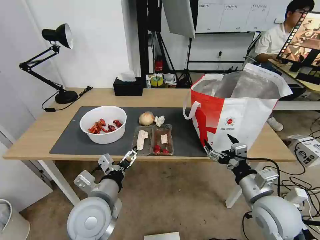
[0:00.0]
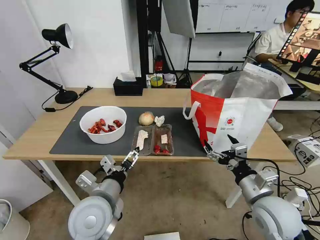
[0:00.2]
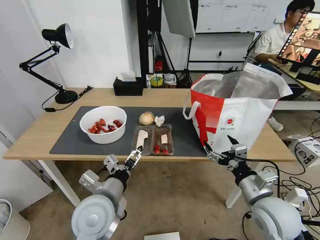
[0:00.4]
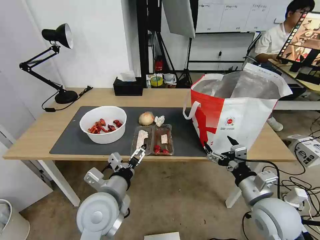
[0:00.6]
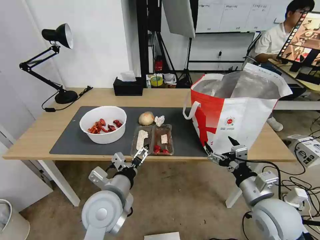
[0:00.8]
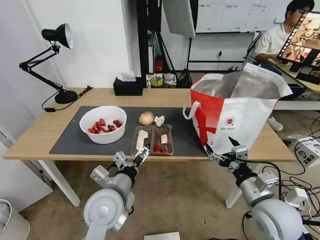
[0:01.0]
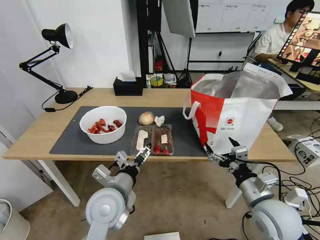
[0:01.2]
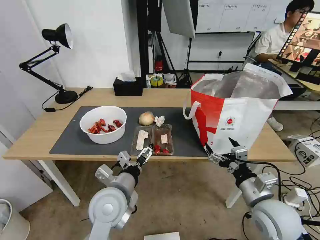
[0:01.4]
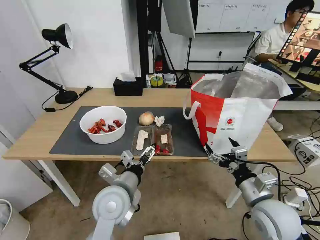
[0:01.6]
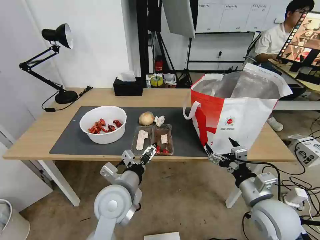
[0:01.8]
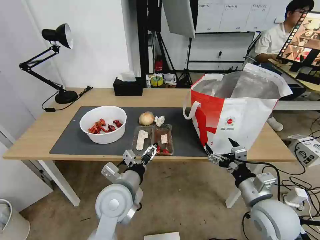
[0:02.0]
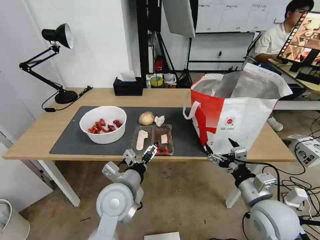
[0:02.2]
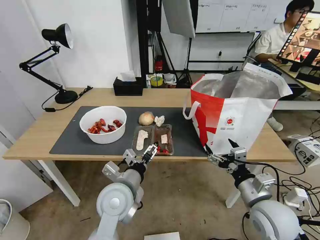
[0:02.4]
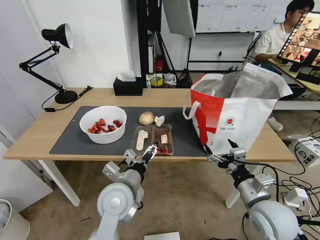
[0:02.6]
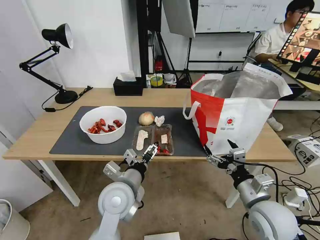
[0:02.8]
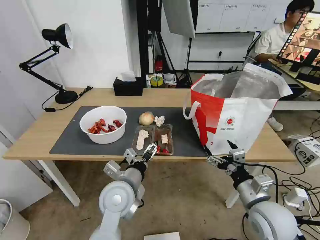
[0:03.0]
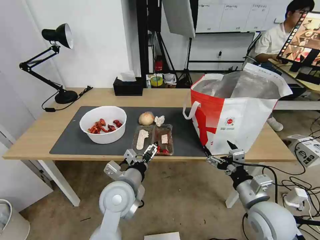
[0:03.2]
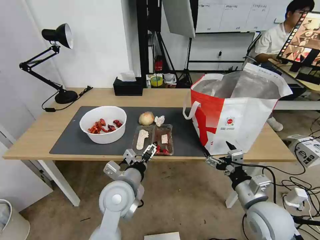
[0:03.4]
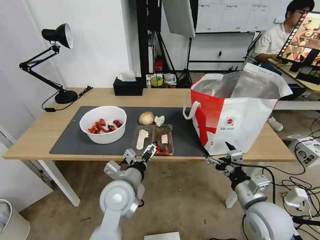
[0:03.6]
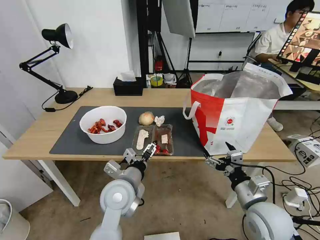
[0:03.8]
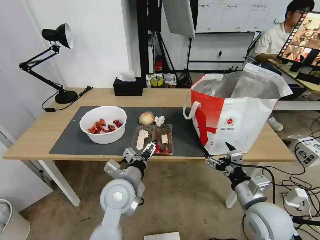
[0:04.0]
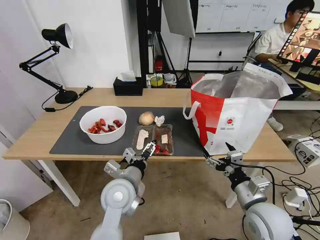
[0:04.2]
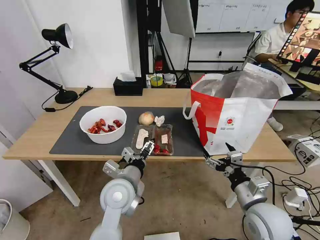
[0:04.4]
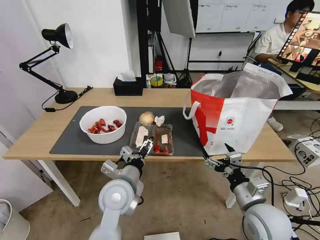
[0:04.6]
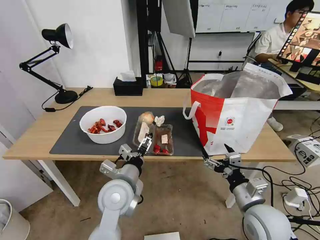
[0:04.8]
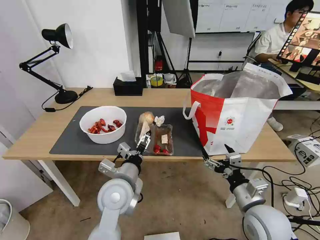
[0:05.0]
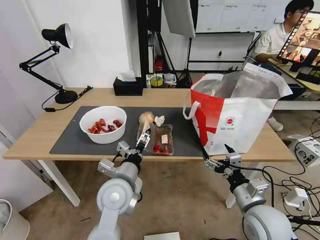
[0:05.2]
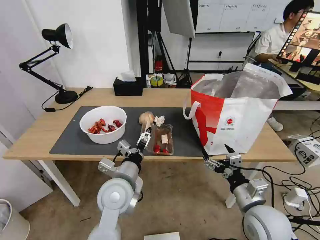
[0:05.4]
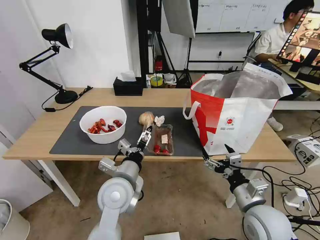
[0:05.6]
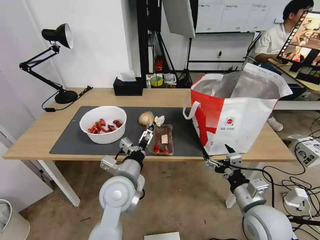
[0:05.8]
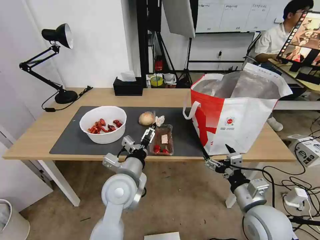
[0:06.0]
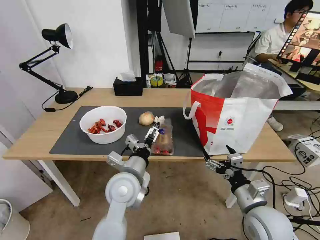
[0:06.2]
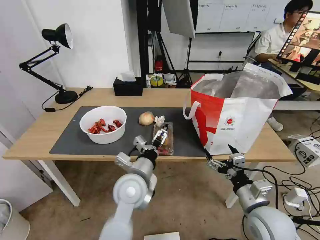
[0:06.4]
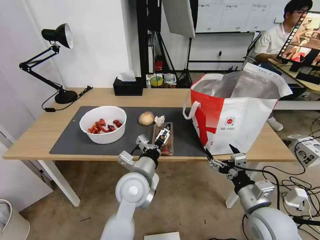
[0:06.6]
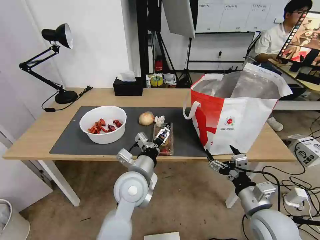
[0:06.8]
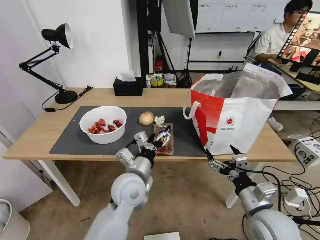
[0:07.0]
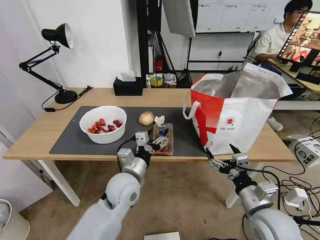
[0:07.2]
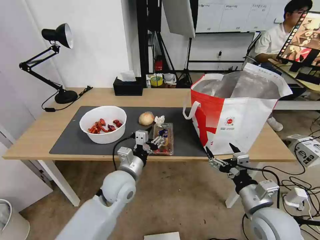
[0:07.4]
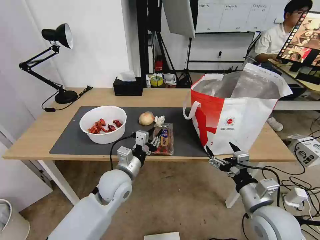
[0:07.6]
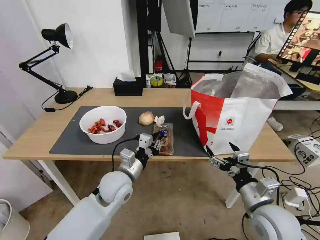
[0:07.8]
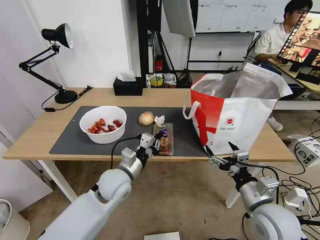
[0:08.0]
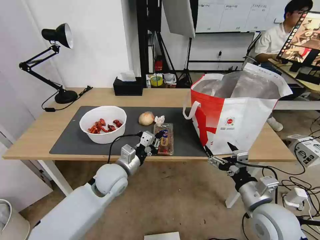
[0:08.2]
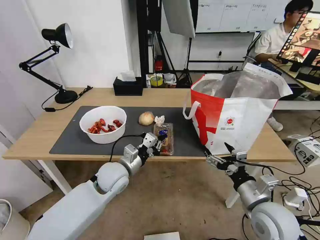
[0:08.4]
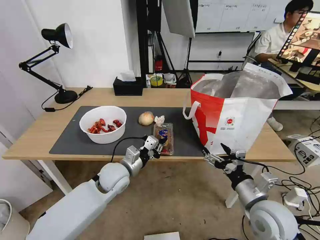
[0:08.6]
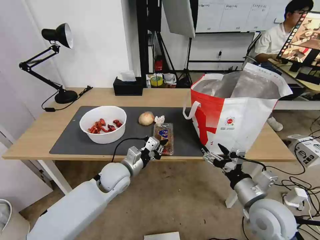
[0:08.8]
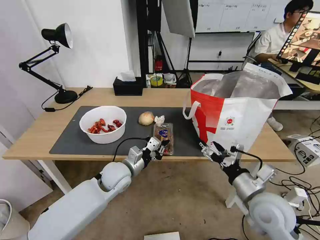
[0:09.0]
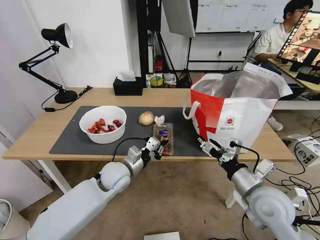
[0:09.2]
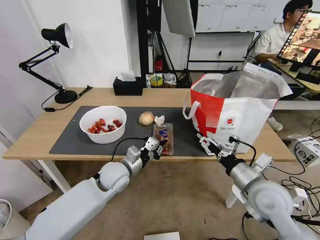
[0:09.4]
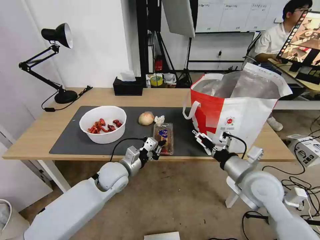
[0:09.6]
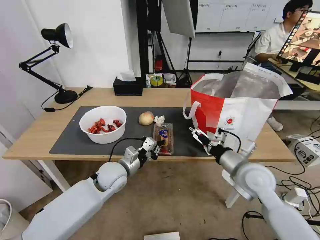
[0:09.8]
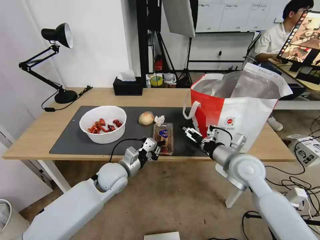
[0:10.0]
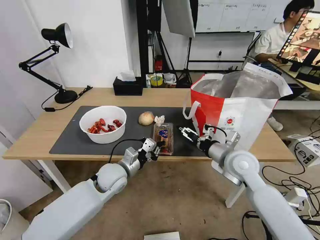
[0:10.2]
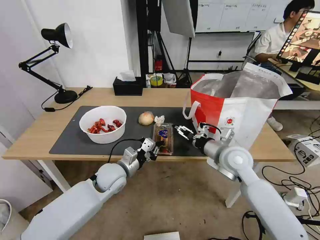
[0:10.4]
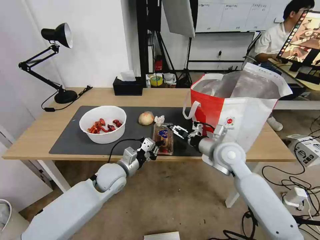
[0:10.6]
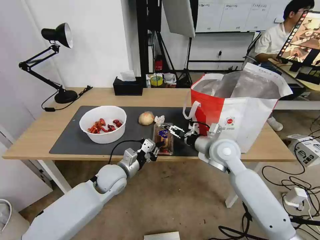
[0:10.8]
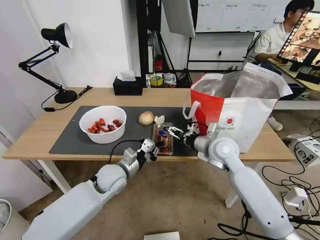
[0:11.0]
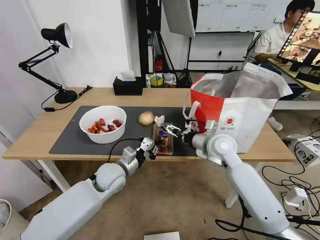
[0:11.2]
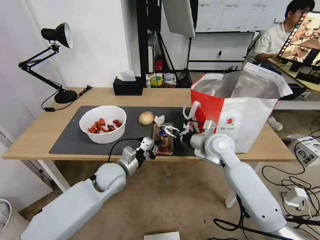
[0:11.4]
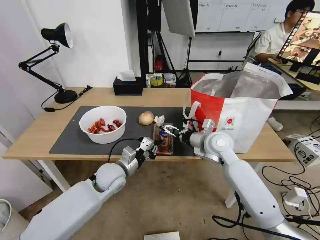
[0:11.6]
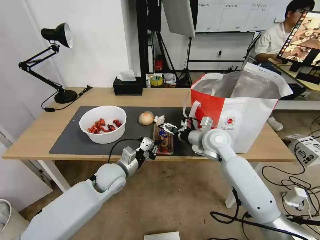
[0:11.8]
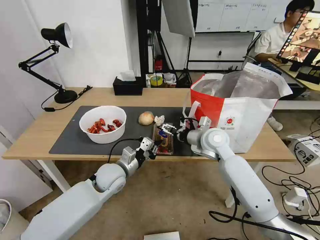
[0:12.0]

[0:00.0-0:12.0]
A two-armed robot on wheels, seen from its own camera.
Task of the whole recording: Pick up the trash from the table and place it into the takeout bag.
0:00.0 to 0:01.6: The left gripper shifts by roughly 5 cm.
0:01.6 to 0:03.0: The grippers stay close to where they were, moving slightly.
0:03.0 to 0:04.4: Both grippers stay put.
0:04.4 to 0:06.0: The grippers make only small movements.
0:06.0 to 0:07.6: The left gripper shifts by approximately 5 cm, and closes its fingers.
0:09.0 to 0:10.4: The right gripper goes about 15 cm forward.
0:10.4 to 0:12.0: The right gripper shifts some 5 cm forward.

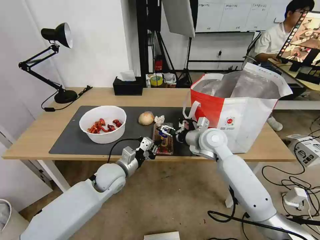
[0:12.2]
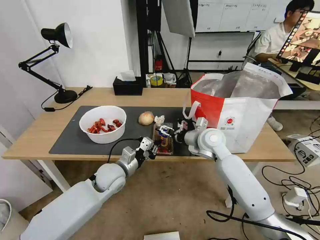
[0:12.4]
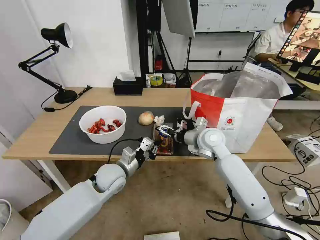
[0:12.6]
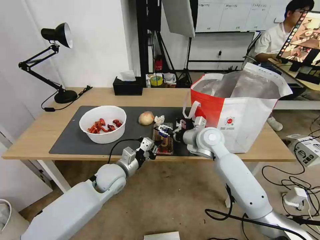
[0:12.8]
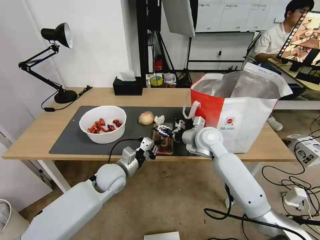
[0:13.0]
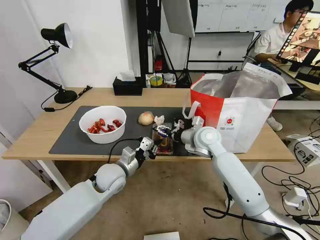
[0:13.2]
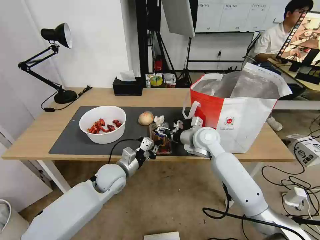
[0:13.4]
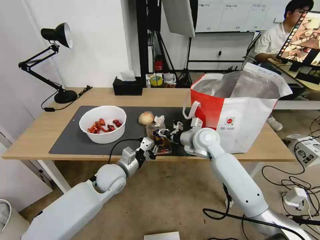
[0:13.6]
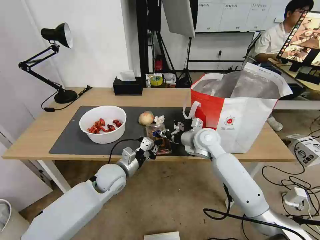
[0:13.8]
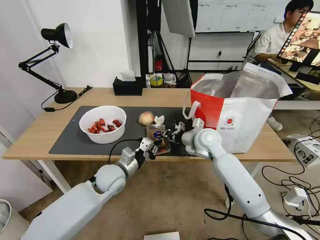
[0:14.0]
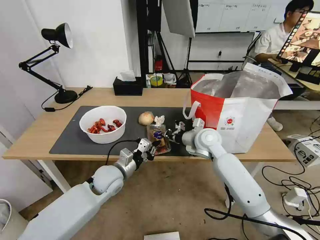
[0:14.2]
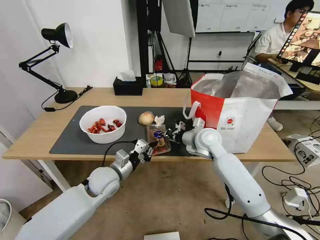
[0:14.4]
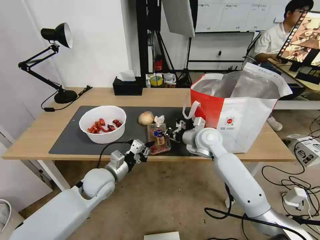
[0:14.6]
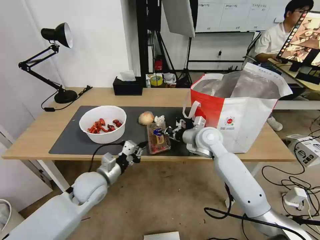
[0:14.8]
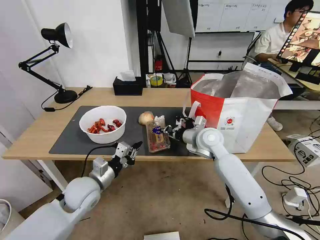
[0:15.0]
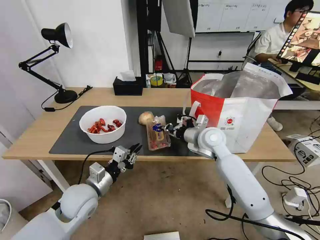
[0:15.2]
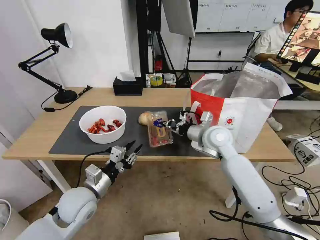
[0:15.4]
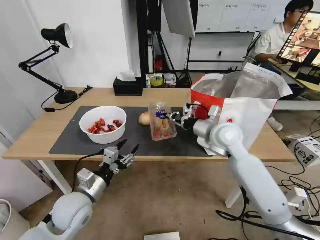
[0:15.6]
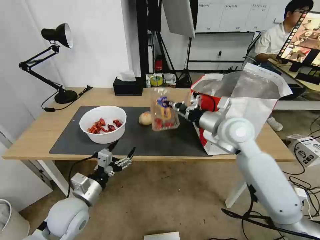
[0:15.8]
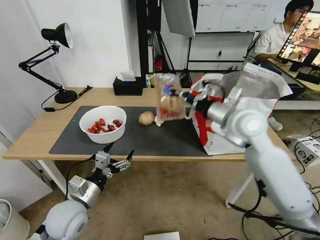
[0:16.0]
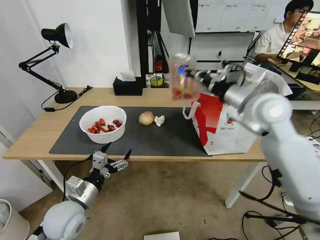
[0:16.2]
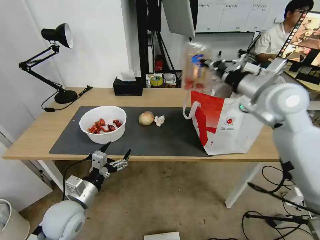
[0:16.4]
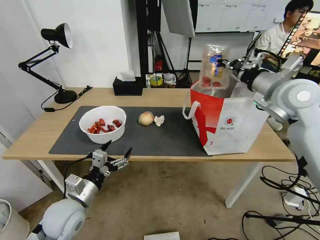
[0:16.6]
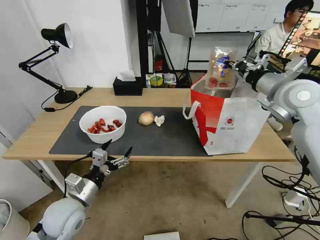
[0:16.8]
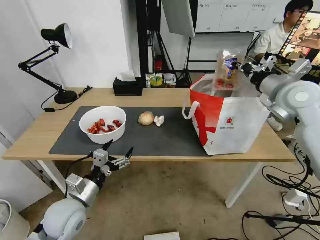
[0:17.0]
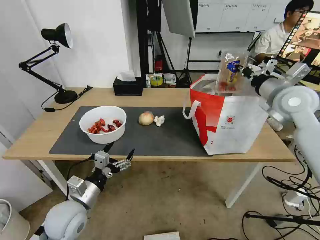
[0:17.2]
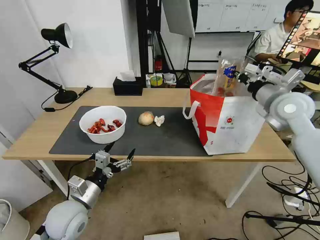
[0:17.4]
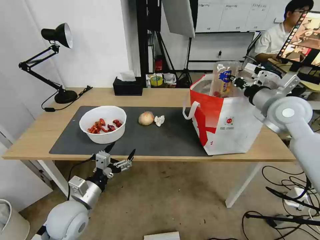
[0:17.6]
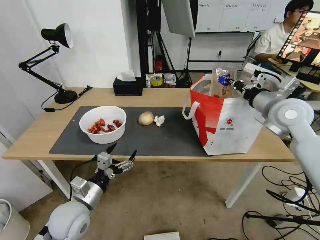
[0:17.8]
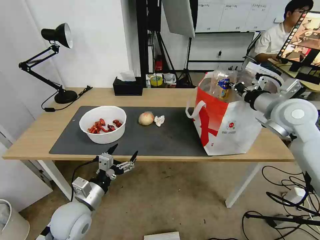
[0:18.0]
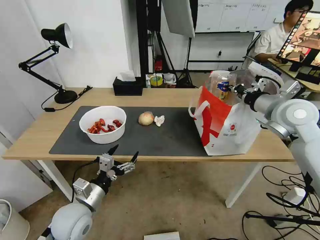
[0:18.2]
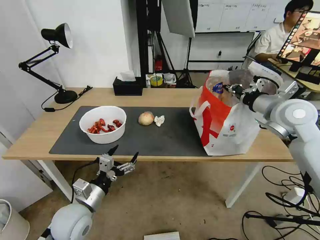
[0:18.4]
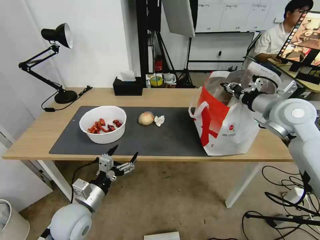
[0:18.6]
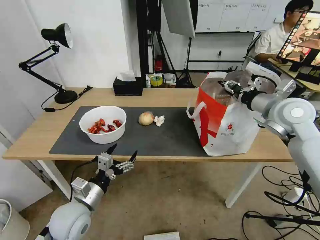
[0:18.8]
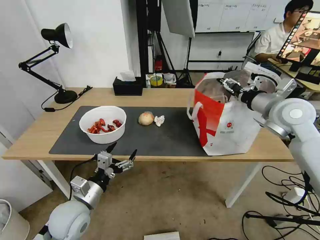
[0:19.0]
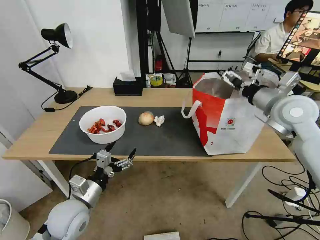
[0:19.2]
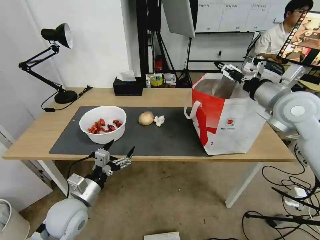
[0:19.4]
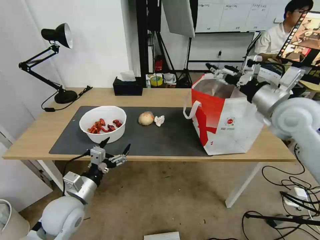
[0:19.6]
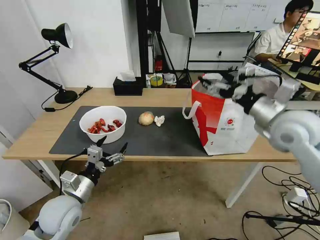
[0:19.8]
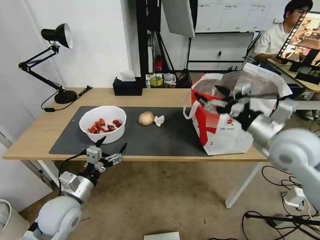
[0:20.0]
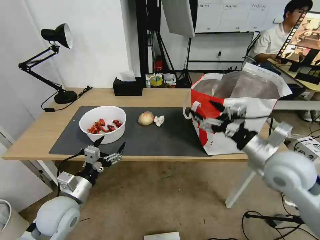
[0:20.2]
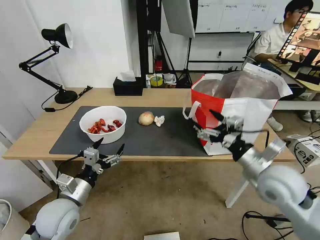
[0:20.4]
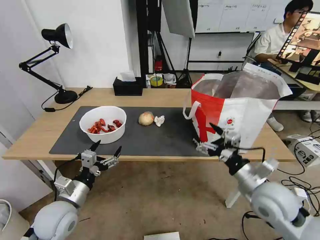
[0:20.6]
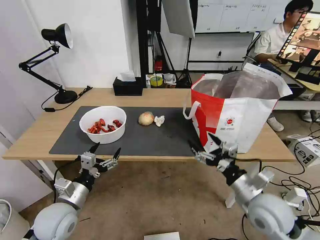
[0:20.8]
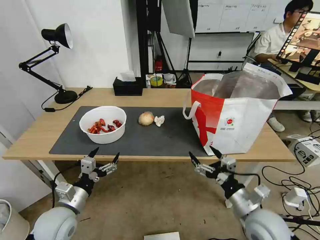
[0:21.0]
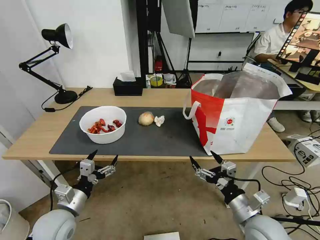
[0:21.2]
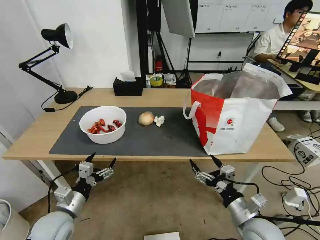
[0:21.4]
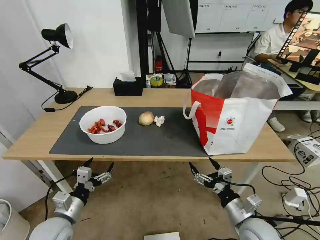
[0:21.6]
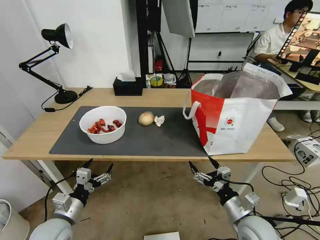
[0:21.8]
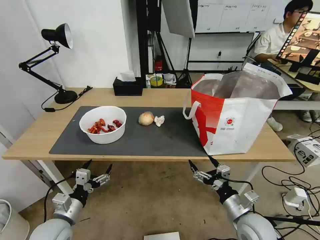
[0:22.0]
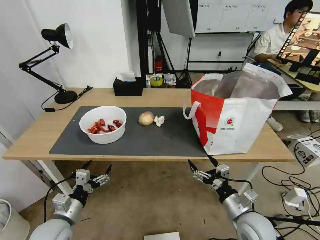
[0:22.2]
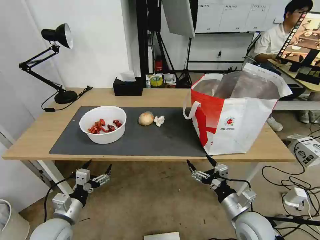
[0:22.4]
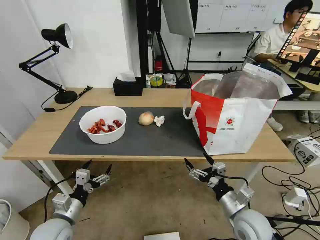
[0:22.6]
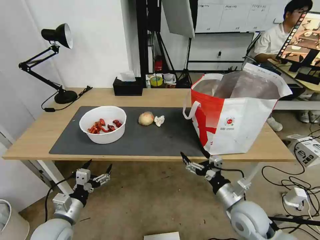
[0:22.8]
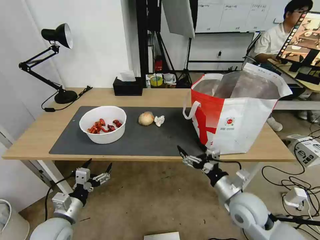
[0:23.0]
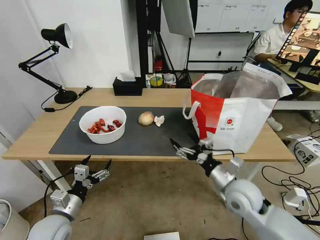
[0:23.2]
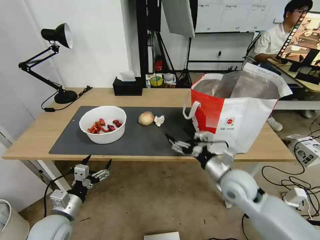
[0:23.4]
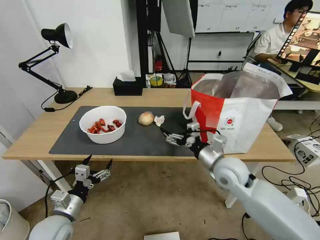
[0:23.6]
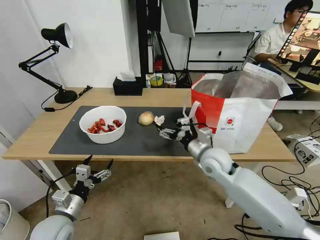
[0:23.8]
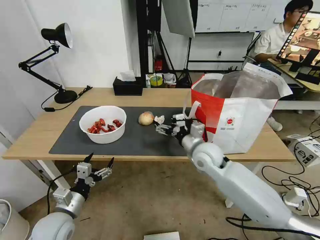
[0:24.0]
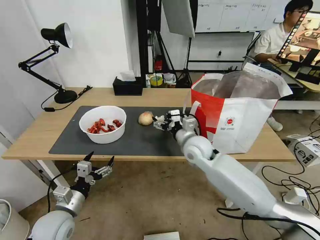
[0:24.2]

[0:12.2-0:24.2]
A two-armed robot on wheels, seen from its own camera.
Task of the whole recording: Pick up the trash from the table and place it into the takeout bag.
0:12.2 to 0:13.8: The right gripper closes.
0:13.8 to 0:15.2: The left gripper heads backward and to the left, covering roughly 10 cm.
0:15.2 to 0:16.6: The left gripper opens. Meanwhile the right gripper shifts roughly 25 cm upward and to the right.
0:16.6 to 0:18.2: The right gripper travels downward by approximately 5 cm.
0:18.2 to 0:19.8: The right gripper goes approximately 5 cm backward, and opens up.
0:19.8 to 0:21.2: The left gripper ends up some 5 cm from where it was. Meanwhile the right gripper shifts about 30 cm downward and backward.
0:21.2 to 0:22.6: The grippers stay close to where they were, moving slightly.
0:22.6 to 0:24.2: The right gripper heads forward, to the left and upward, covering some 30 cm.
